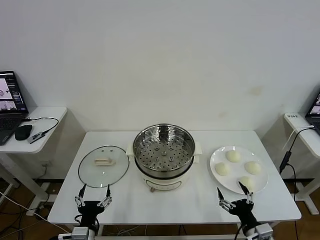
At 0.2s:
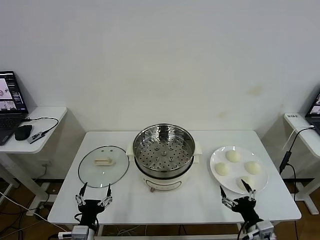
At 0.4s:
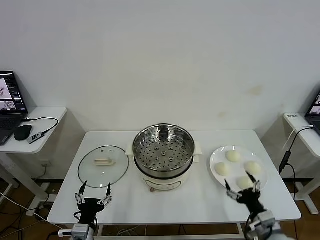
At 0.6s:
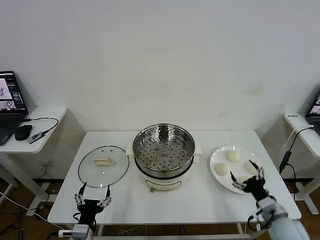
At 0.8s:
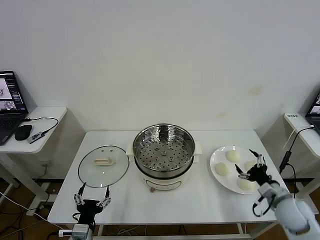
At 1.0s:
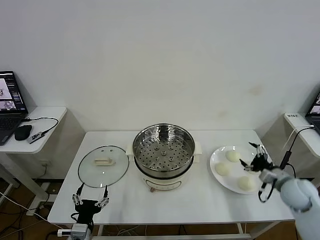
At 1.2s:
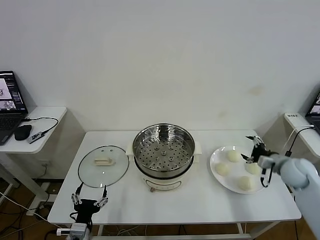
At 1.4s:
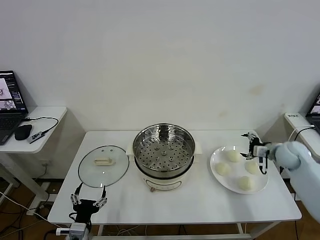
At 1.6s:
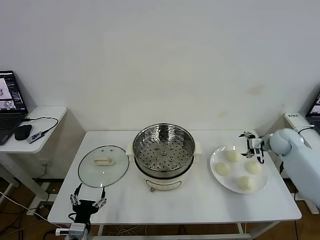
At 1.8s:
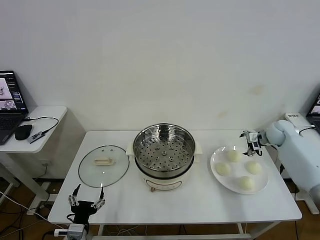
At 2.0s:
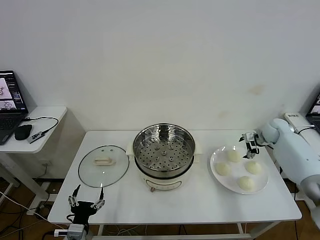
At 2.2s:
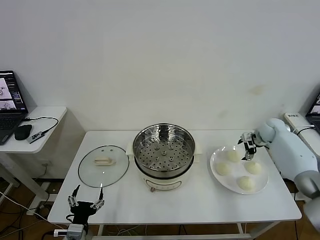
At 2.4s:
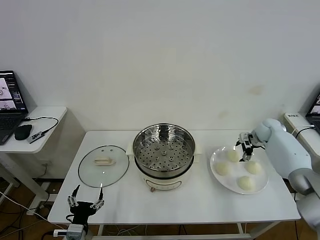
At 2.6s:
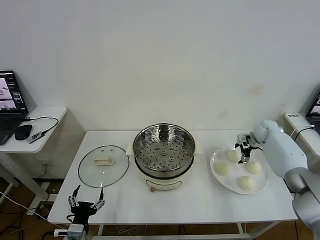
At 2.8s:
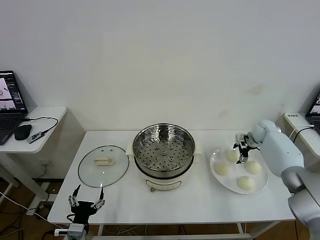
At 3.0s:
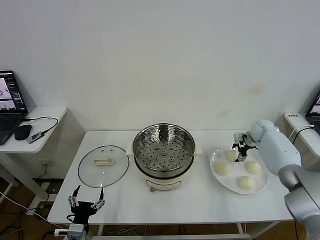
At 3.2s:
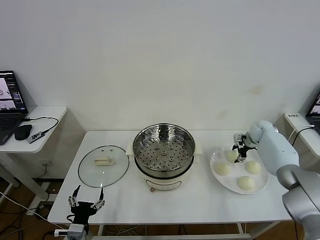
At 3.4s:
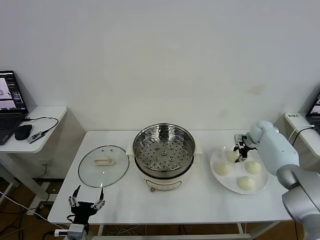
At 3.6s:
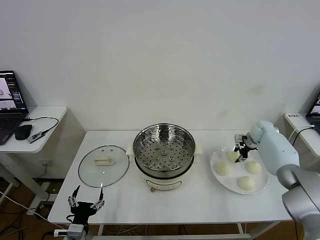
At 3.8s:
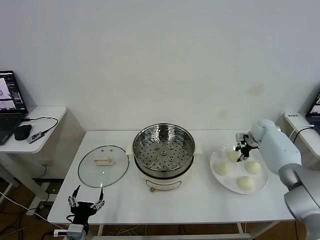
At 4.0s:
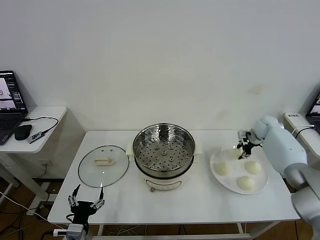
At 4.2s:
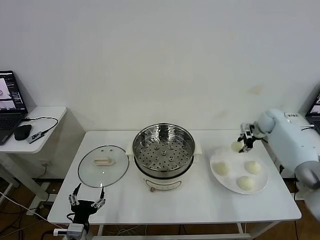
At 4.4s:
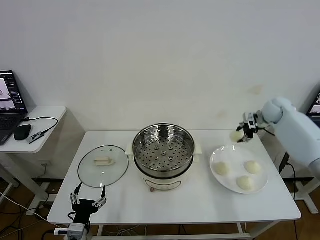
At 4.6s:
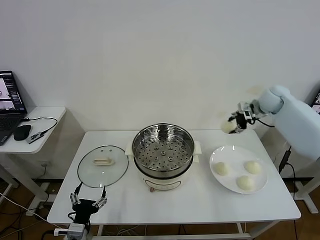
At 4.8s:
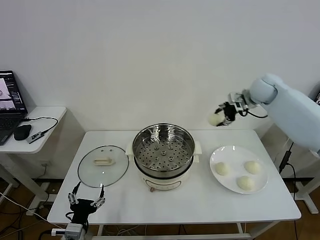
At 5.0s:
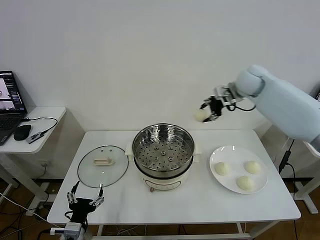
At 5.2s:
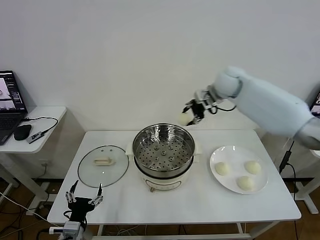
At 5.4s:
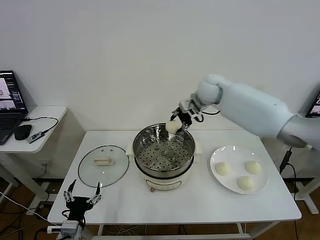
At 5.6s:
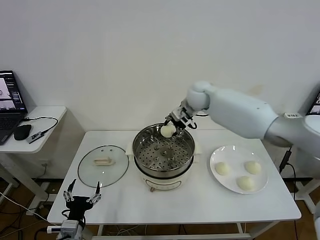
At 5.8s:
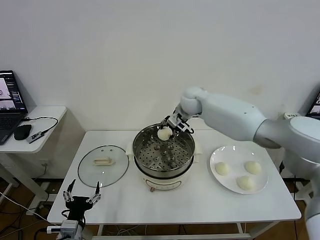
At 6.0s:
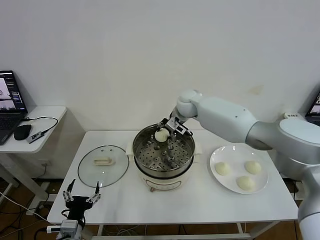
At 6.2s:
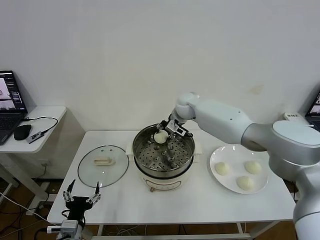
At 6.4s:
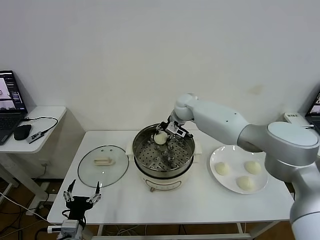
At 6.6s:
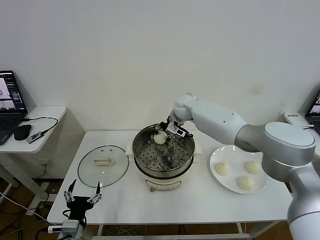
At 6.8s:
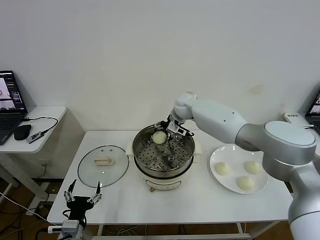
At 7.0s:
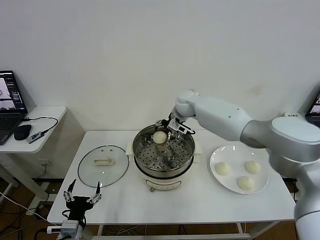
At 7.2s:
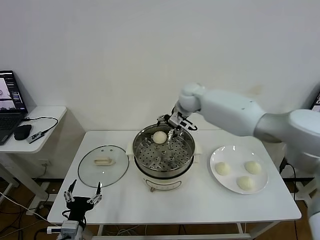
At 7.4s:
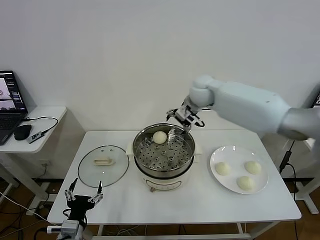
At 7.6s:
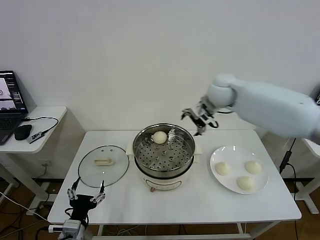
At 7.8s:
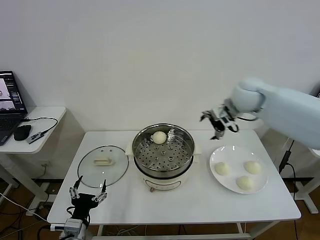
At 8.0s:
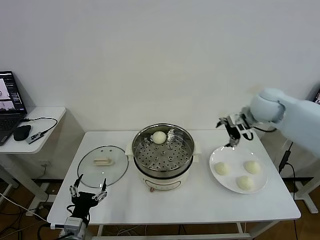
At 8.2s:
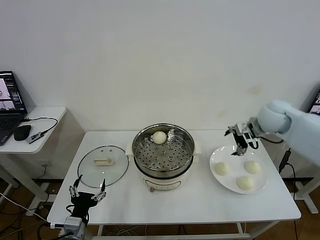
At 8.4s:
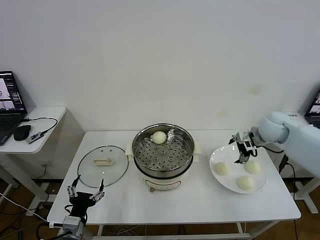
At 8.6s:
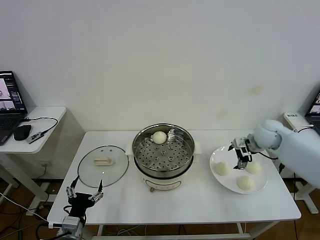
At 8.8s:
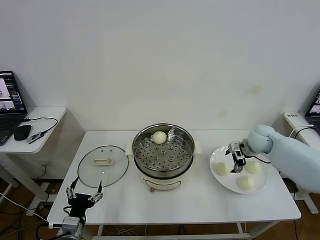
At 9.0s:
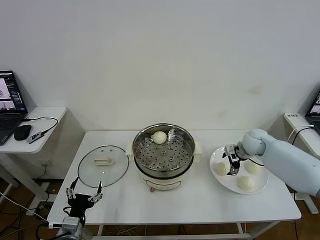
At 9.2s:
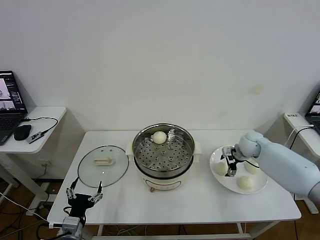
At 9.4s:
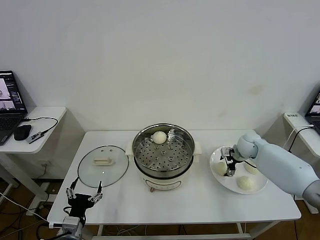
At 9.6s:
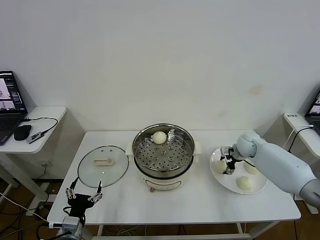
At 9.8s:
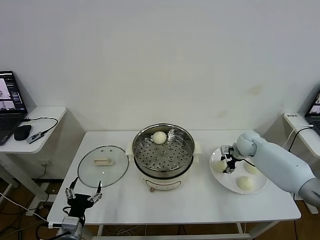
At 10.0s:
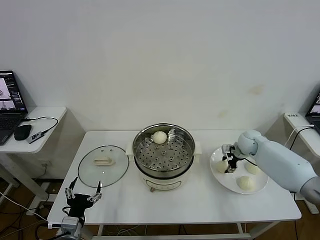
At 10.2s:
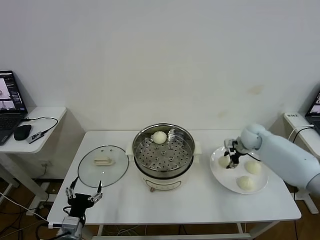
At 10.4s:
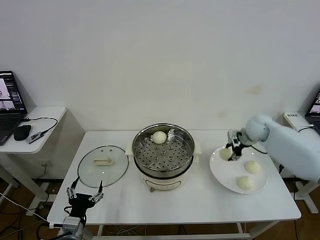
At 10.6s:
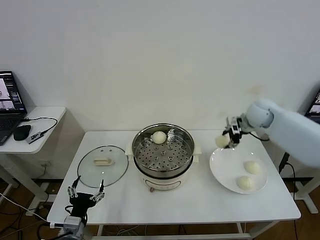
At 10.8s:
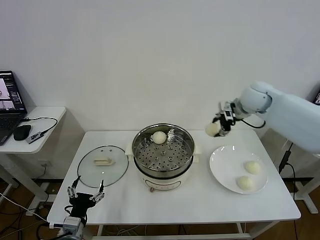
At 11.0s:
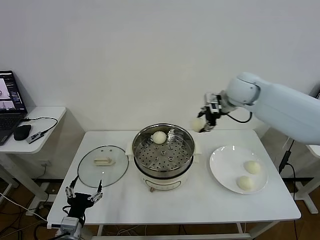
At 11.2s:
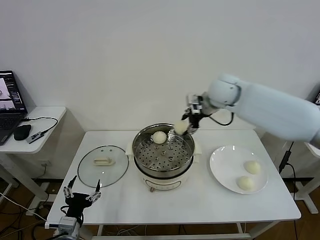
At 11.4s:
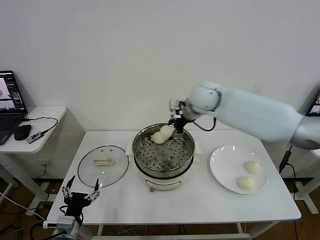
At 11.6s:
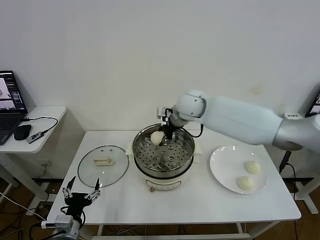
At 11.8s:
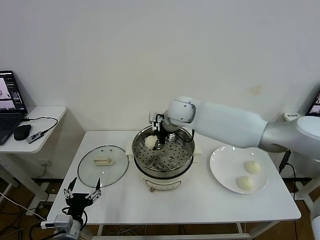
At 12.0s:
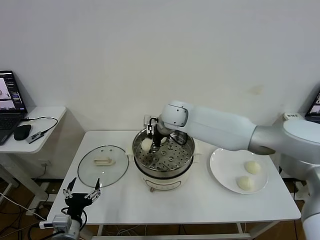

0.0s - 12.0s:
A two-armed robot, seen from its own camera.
Task of the whole recording: take steamed baozi put them in steamer then cover it.
Step, 0.0s - 3.4s: Grasp the baozi in the plate with right gripper.
Step, 3.6s - 6.8s: Place the baozi on the steamer with right gripper.
Step, 7.0s - 9.8s: Grasp the baozi in the plate with right gripper.
1.6s - 3.0s: The right gripper travels forward by roughly 10 cm, and closes.
3.0s - 4.4s: The right gripper heads upward, covering some 15 cm, and closes its fingers.
4.4s - 6.0s: The right gripper heads to the left, covering some 35 cm.
6.0s - 7.6s: The right gripper shifts about 15 cm to the right, upward and backward, and opens up.
7.6s - 9.0s: The right gripper goes about 25 cm downward and to the right.
9.0s - 10.4s: The right gripper travels upward by about 5 cm, and closes.
10.4s - 12.0s: The right gripper goes about 30 cm to the left.

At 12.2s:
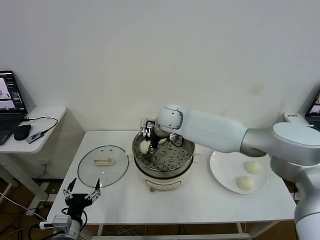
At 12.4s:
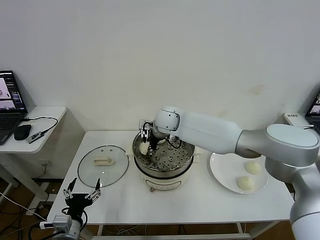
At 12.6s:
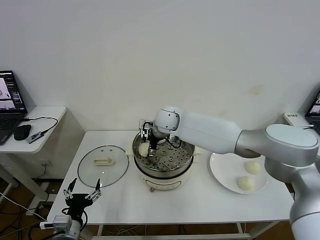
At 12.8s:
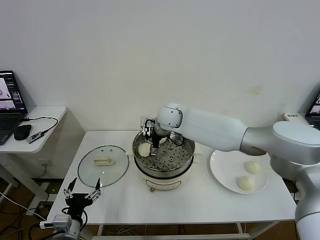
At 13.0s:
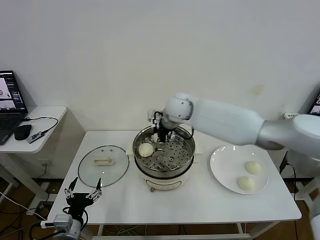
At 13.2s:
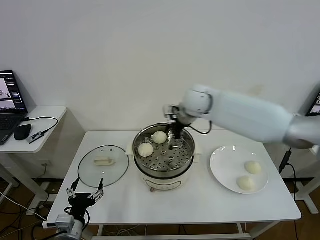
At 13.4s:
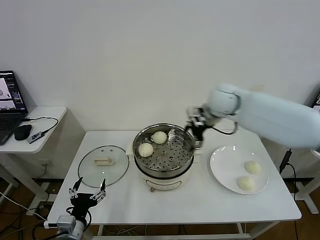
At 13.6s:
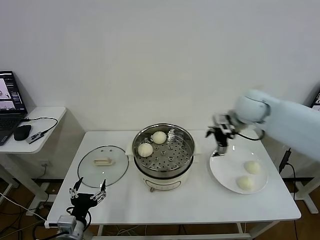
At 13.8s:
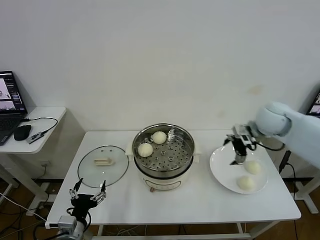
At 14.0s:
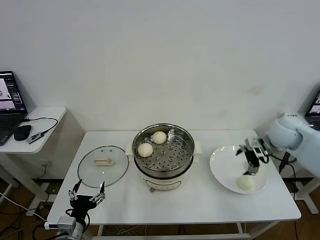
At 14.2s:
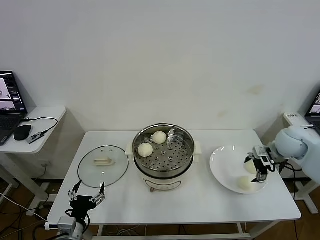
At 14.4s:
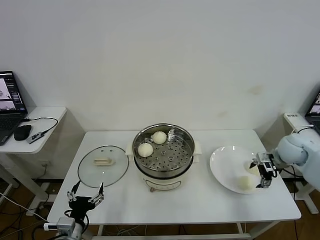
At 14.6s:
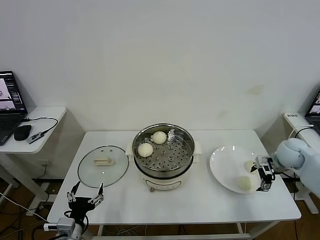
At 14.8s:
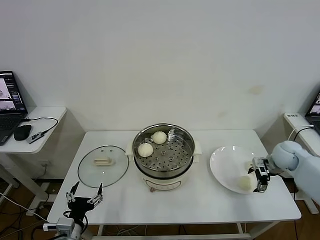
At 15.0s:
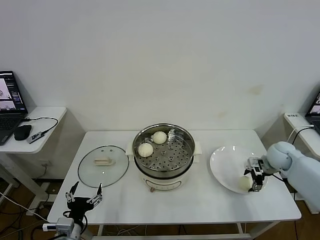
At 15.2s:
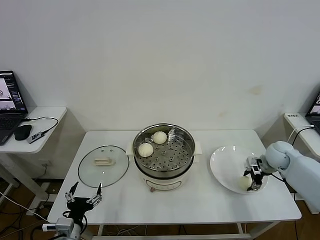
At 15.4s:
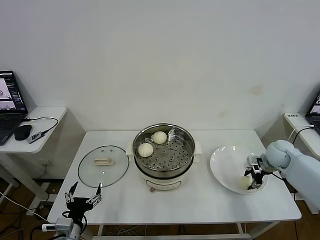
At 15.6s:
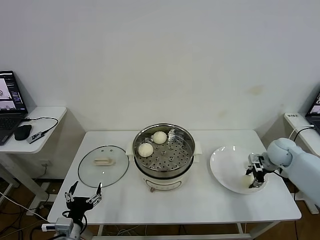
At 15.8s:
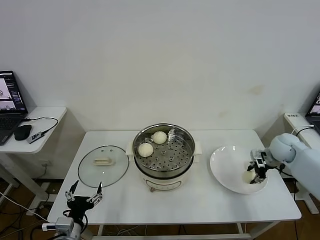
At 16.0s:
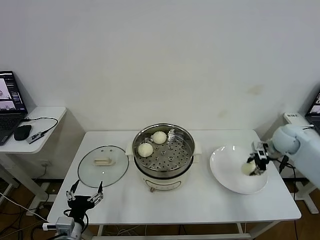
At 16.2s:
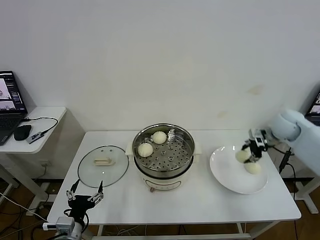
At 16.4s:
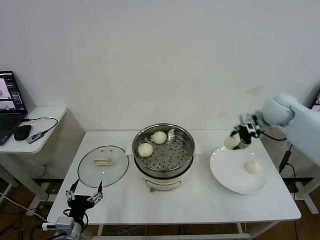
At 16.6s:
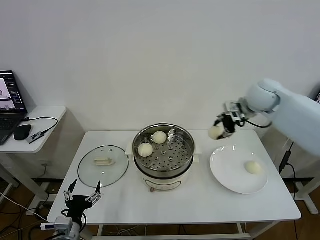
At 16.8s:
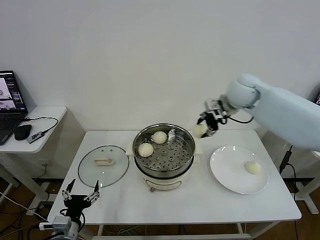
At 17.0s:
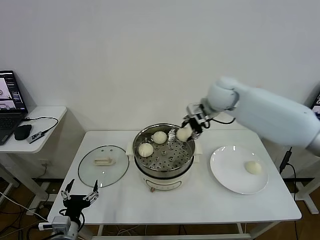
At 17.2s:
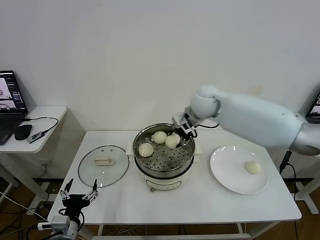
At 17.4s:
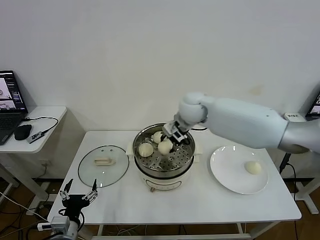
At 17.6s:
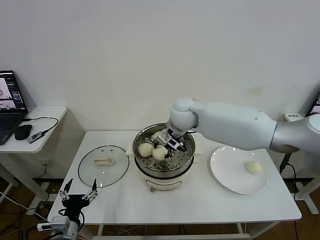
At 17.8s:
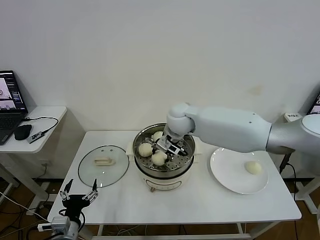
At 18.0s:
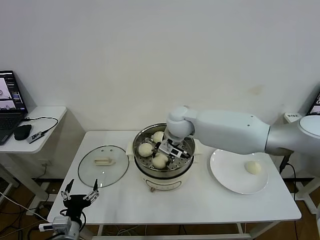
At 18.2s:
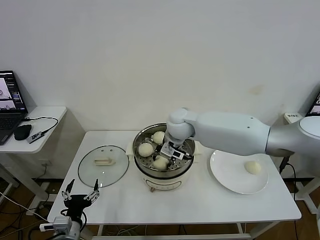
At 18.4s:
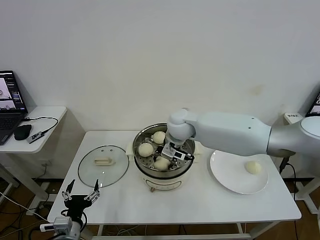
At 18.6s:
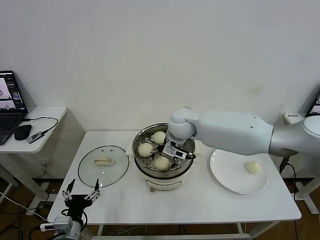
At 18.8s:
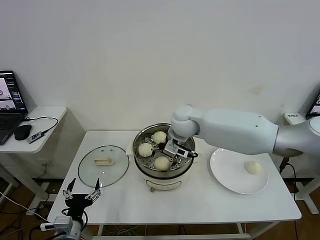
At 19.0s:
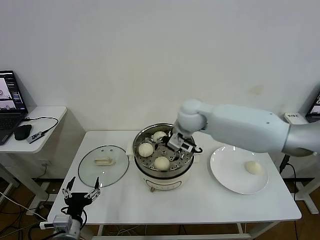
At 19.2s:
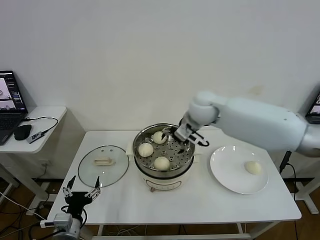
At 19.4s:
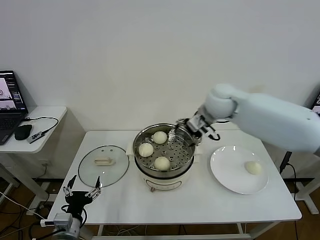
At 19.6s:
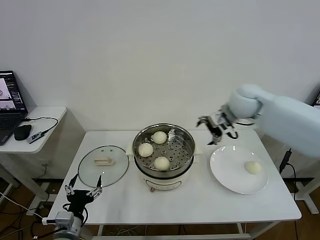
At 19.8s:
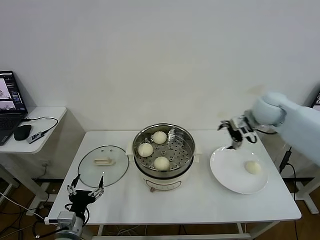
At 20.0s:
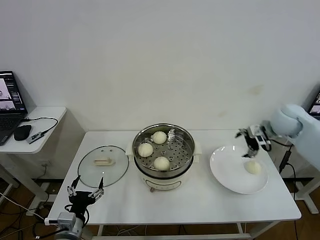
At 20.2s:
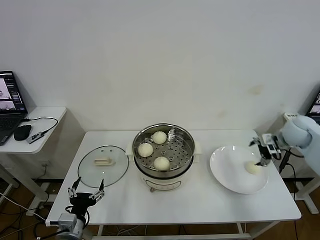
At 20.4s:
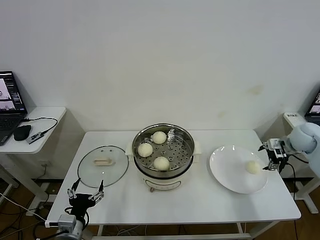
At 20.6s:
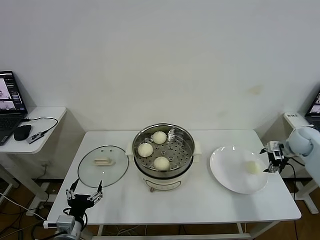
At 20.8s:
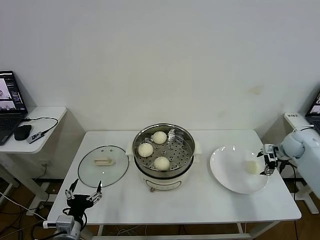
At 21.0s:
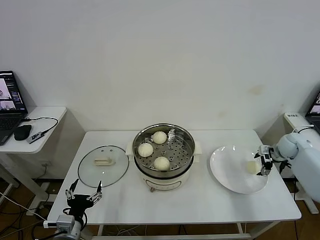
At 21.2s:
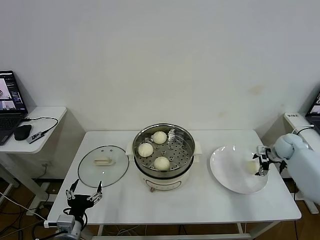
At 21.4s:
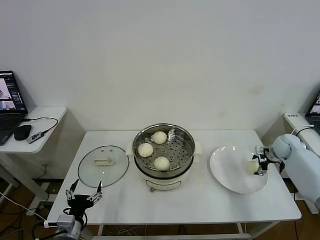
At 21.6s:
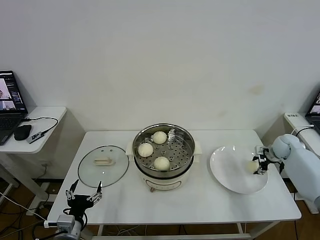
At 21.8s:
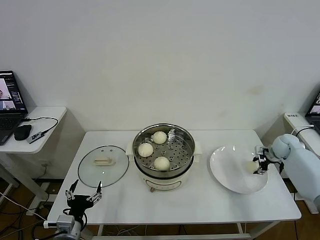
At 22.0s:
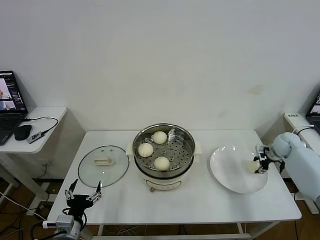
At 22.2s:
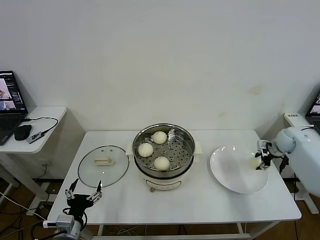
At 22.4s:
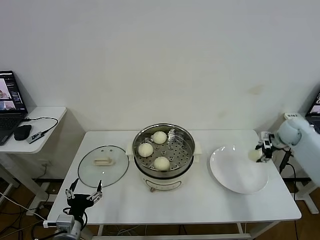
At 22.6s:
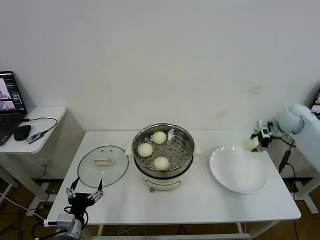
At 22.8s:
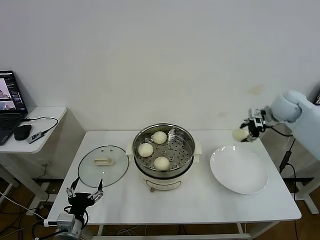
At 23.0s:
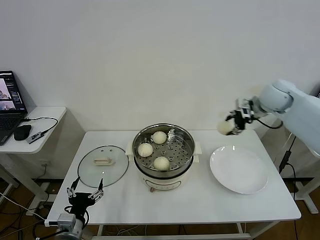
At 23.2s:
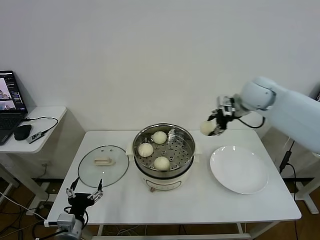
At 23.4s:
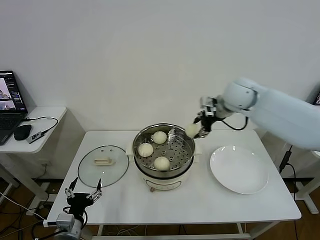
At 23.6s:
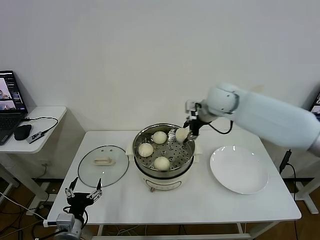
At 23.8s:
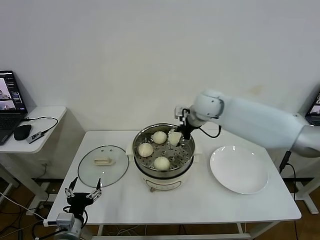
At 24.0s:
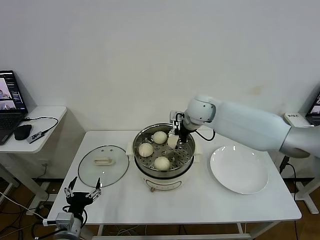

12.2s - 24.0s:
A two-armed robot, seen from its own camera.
Task of the whole recording: take steamed baozi put them in steamer then cover it.
Step, 12.8s - 15.2s: Grasp the baozi in the plate with right gripper.
Step, 15.4s - 18.6s: Place the baozi on the steamer with right gripper.
Step, 19.0s - 22.0s: Grasp the baozi in the plate with right gripper.
12.2s - 13.6s: The right gripper shifts some 25 cm to the right, and opens its fingers.
13.6s - 15.2s: The right gripper travels downward and to the right by roughly 25 cm, and closes up.
15.2s - 16.6s: The right gripper travels upward and to the left by some 25 cm.
16.6s - 18.2s: The right gripper shifts some 25 cm to the left.
18.2s - 19.6s: The right gripper moves to the right and upward, about 20 cm, and opens.
19.6s - 21.0s: The right gripper shifts some 30 cm to the right and downward.
21.0s - 22.6s: The right gripper travels upward by some 10 cm, and closes its fingers.
22.6s - 24.0s: The right gripper travels to the left by roughly 30 cm.
